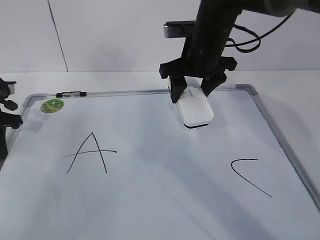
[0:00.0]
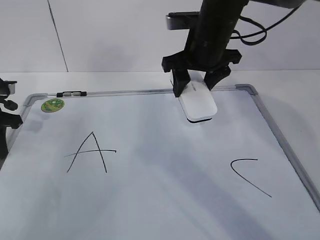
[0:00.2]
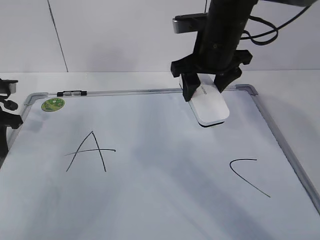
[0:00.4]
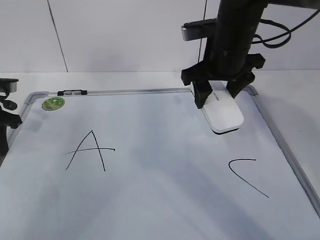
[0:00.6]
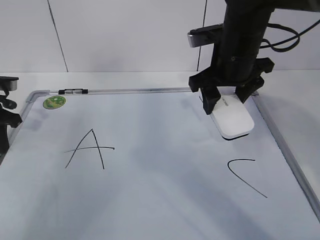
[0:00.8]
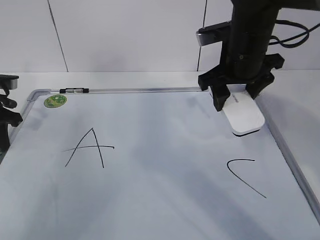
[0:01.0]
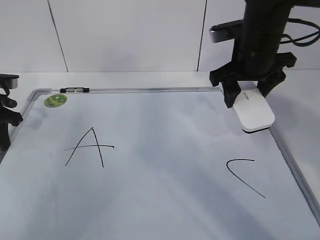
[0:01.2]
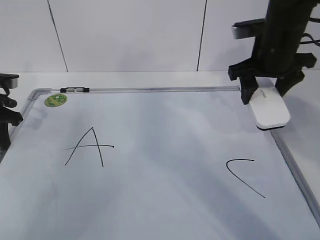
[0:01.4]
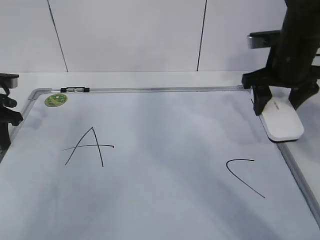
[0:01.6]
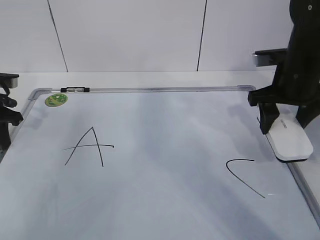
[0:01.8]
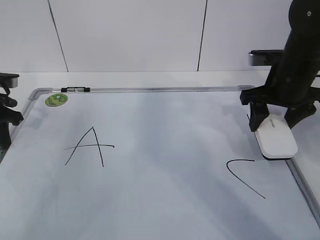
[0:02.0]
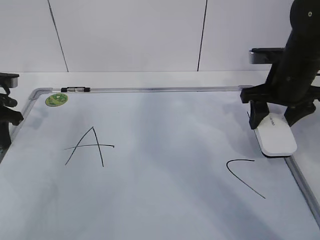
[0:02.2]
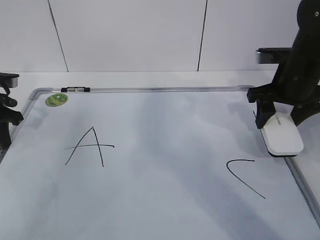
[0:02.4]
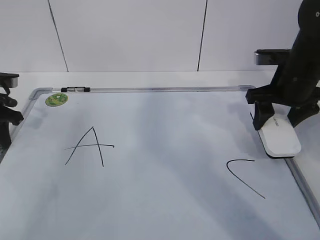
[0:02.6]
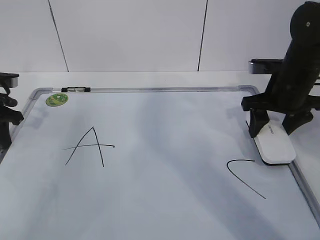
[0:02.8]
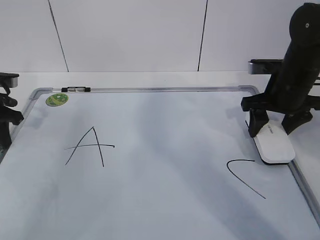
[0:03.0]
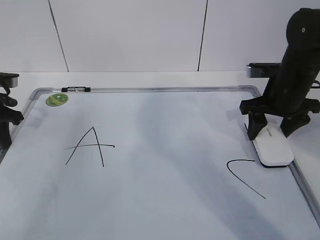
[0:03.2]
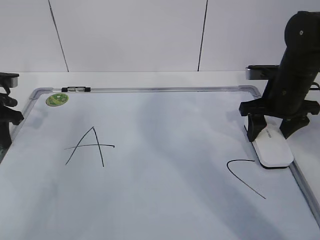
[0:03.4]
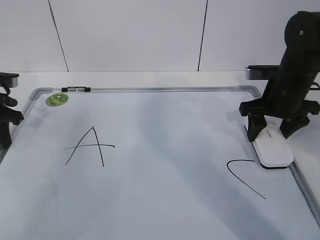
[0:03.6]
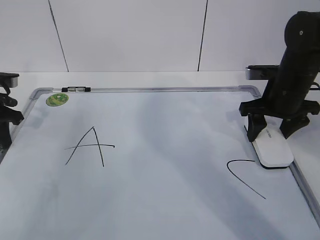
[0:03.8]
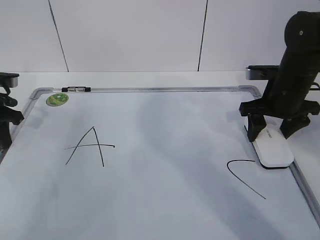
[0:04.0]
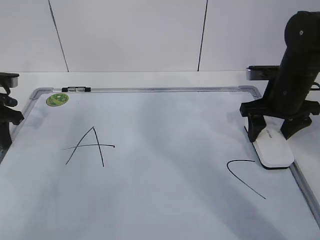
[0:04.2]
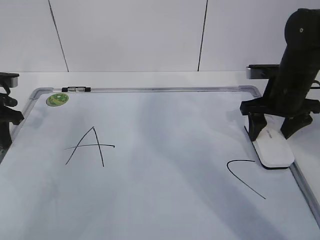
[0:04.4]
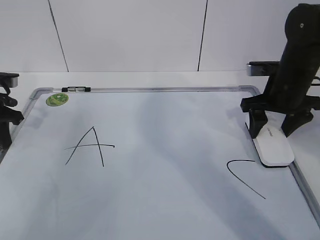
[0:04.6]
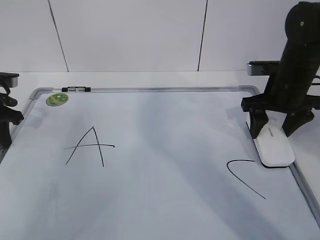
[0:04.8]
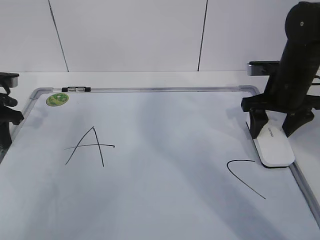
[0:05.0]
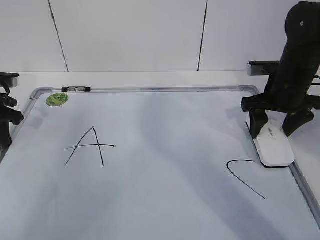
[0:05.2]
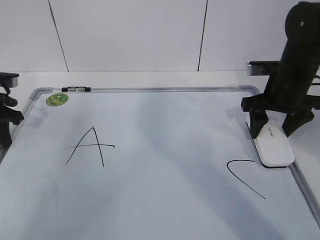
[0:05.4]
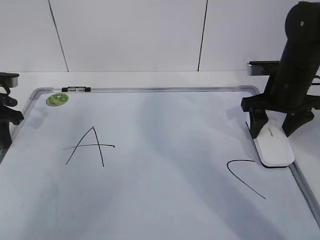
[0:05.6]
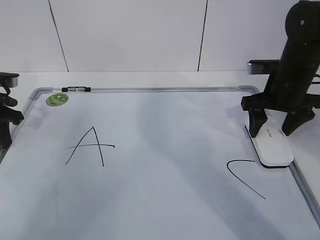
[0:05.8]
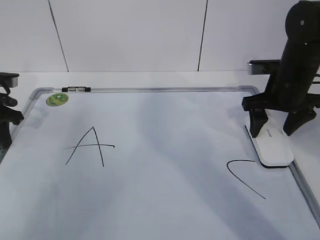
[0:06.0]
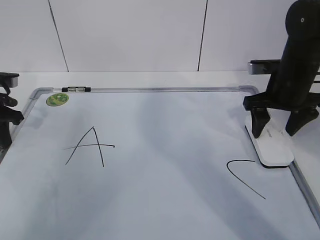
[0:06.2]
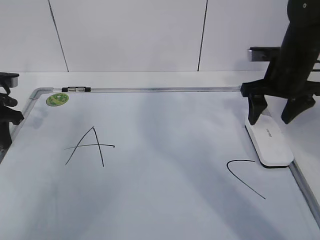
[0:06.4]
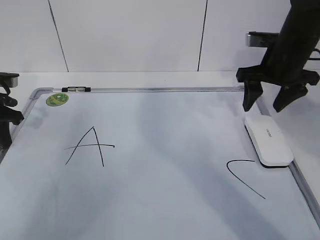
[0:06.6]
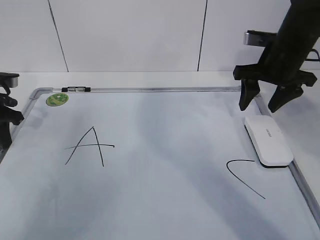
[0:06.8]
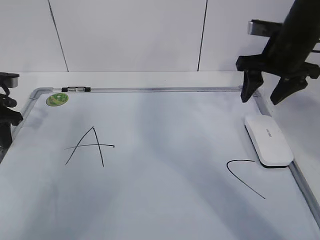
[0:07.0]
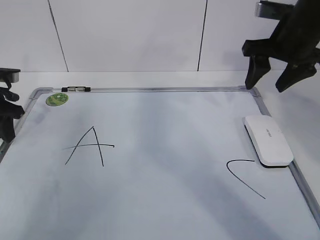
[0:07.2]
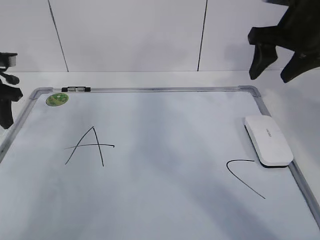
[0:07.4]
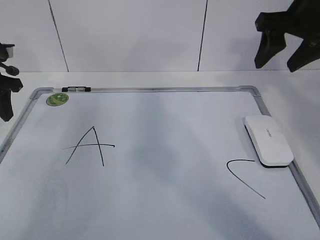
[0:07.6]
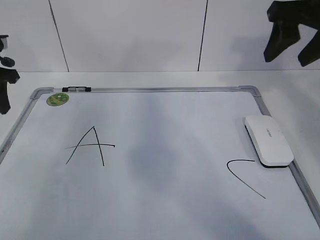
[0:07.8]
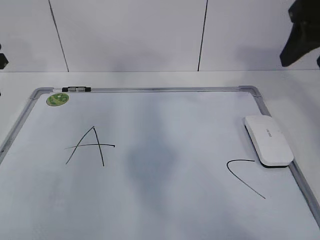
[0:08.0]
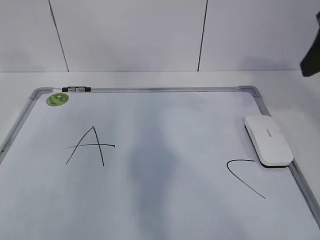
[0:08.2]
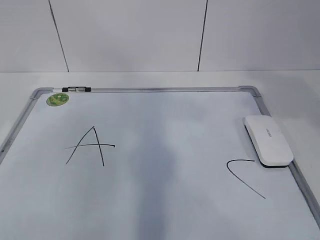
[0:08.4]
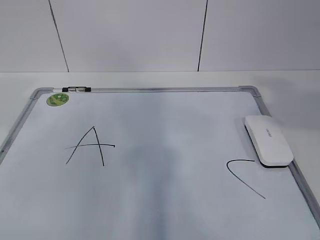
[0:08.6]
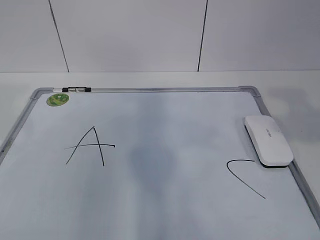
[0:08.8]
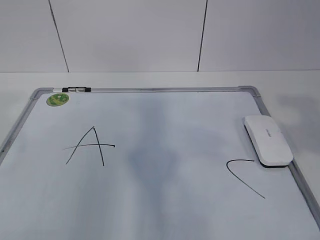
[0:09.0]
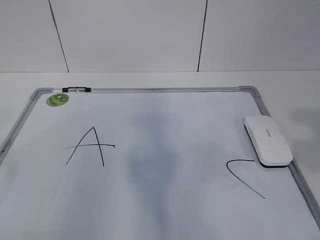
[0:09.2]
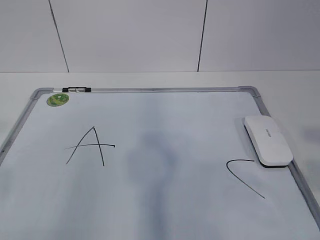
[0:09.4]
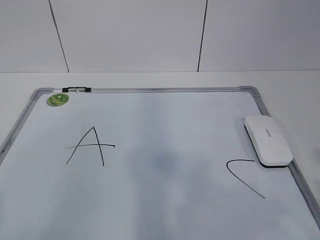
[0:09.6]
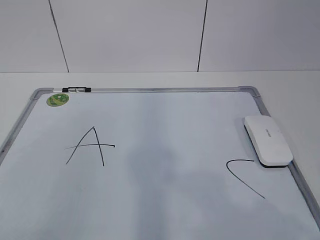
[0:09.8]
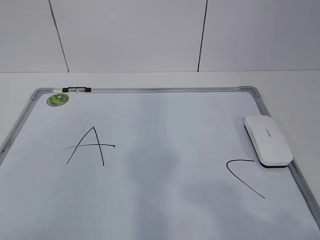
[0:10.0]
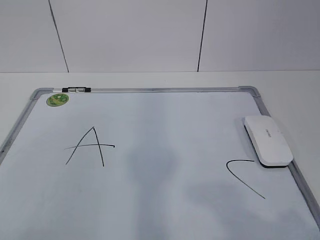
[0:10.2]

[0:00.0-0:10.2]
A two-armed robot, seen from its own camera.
Task of the whole recording: pick up the eraser on the blackboard and erase the letter "B".
0:00.0 to 0:01.4: The right gripper travels to the right by roughly 10 cm.
0:01.4 to 0:03.0: The right gripper is displaced downward by about 5 cm.
0:03.0 to 0:05.8: The two grippers keep their place.
0:05.8 to 0:07.2: The right gripper goes about 10 cm upward, and closes. Meanwhile the left gripper opens up.
0:07.2 to 0:08.8: Both grippers travel together backward and upward, approximately 30 cm.
0:08.8 to 0:10.2: Both grippers travel together backward and downward, roughly 20 cm.

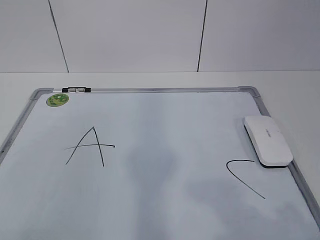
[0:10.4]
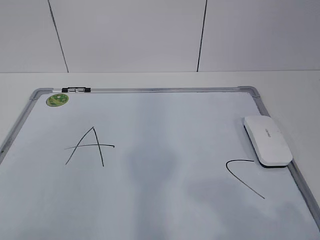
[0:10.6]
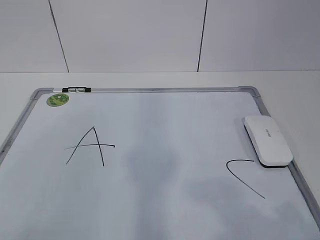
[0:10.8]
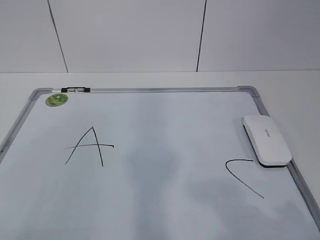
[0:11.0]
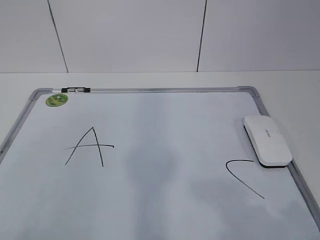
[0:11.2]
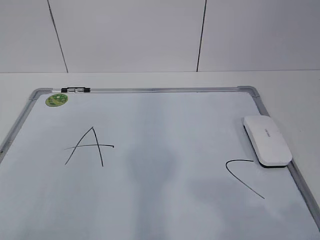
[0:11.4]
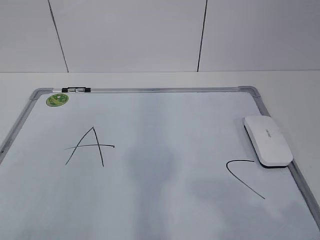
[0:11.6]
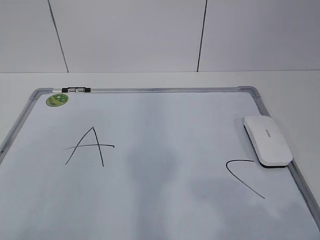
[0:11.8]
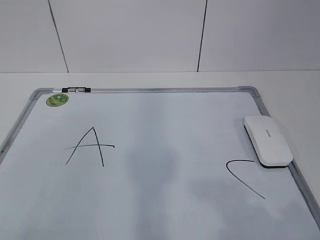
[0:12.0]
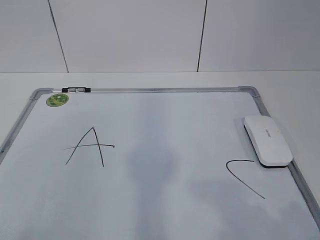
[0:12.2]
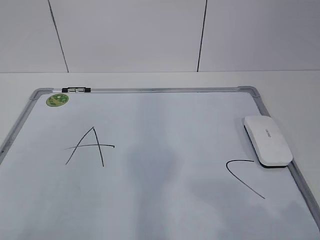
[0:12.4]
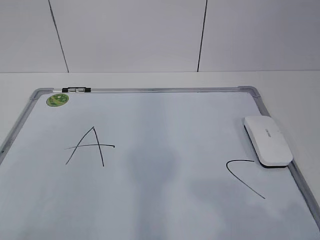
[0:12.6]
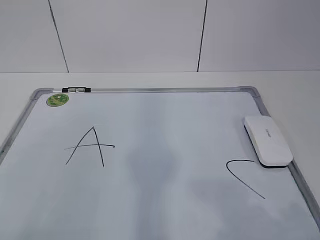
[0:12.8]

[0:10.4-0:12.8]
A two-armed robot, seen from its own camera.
Task of the whole recording: pick up the eraser on the blackboard and erase the letter "B".
0:10.4 to 0:12.8: Both grippers stay put.

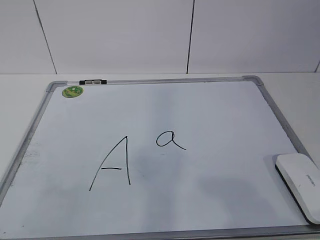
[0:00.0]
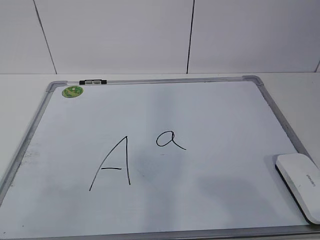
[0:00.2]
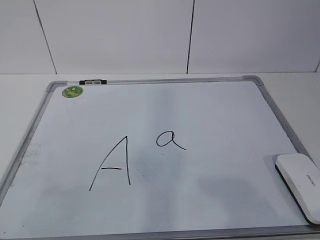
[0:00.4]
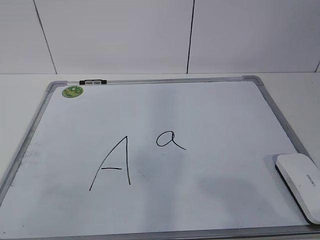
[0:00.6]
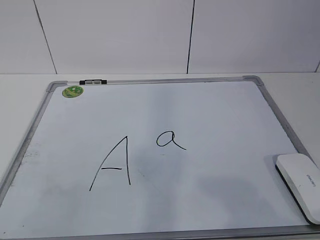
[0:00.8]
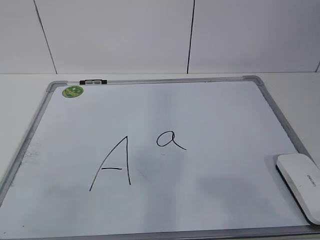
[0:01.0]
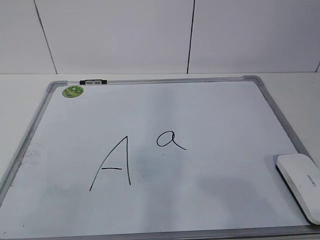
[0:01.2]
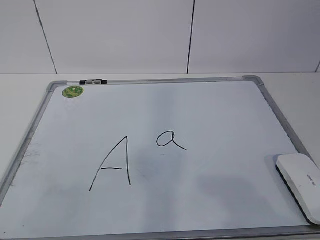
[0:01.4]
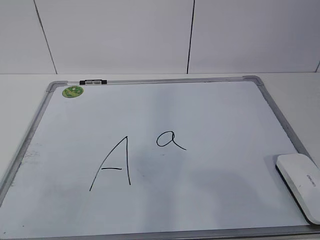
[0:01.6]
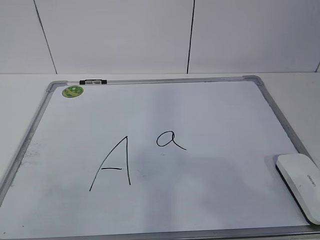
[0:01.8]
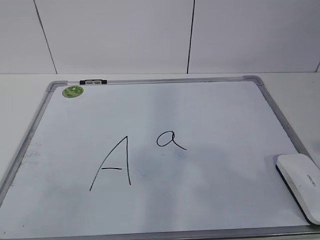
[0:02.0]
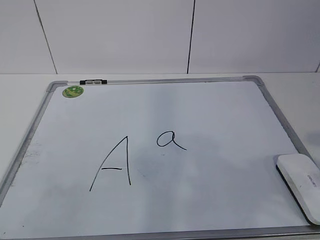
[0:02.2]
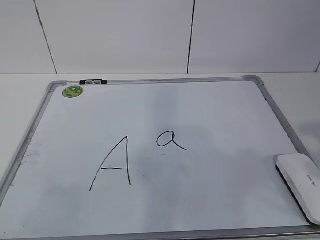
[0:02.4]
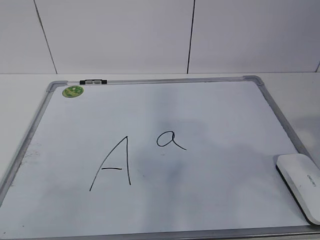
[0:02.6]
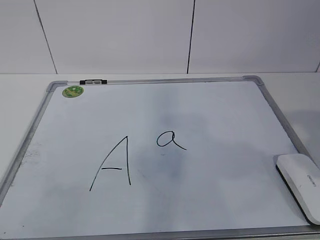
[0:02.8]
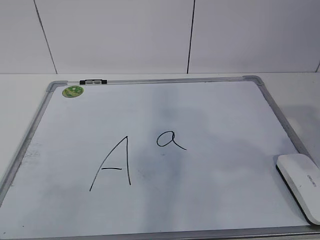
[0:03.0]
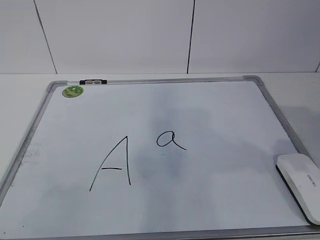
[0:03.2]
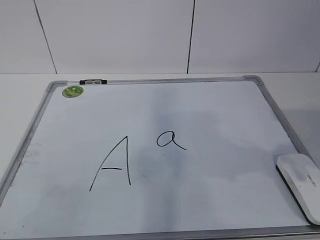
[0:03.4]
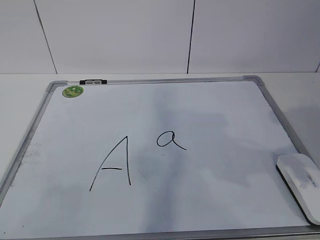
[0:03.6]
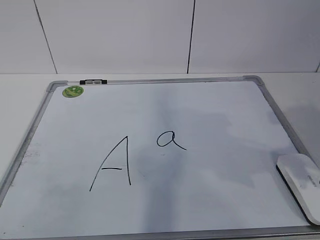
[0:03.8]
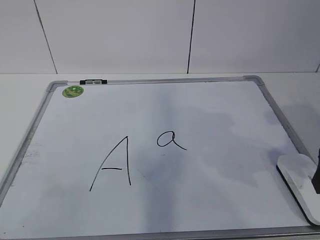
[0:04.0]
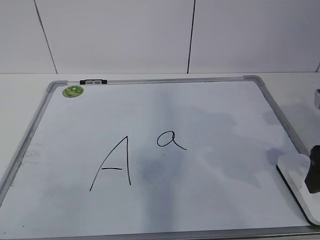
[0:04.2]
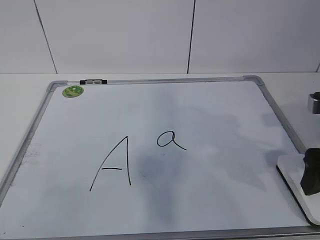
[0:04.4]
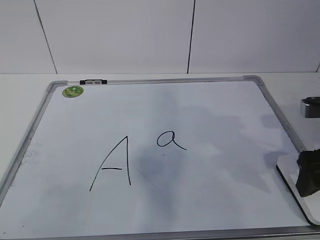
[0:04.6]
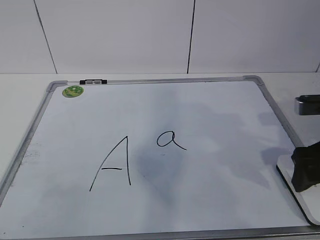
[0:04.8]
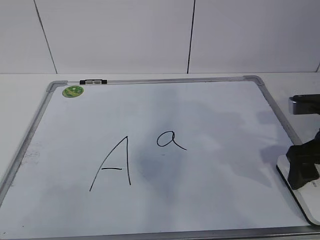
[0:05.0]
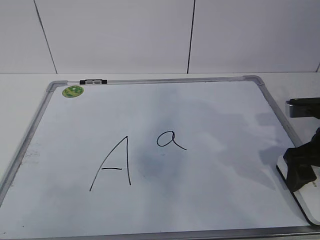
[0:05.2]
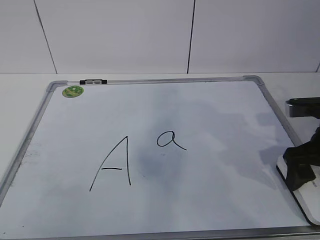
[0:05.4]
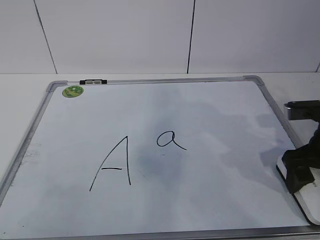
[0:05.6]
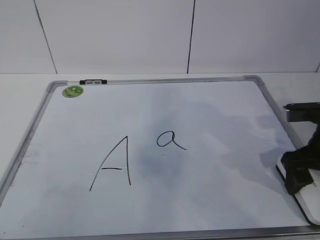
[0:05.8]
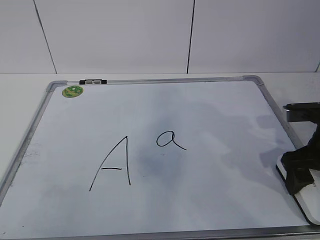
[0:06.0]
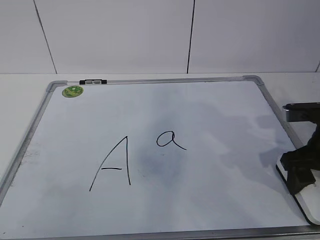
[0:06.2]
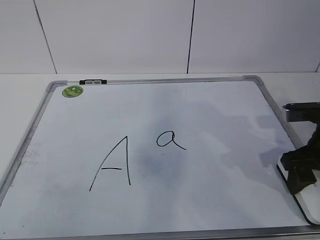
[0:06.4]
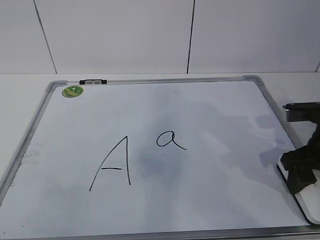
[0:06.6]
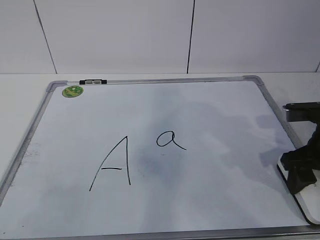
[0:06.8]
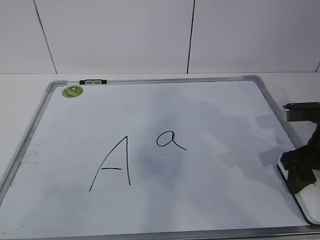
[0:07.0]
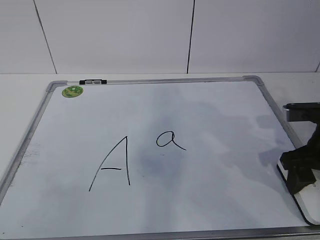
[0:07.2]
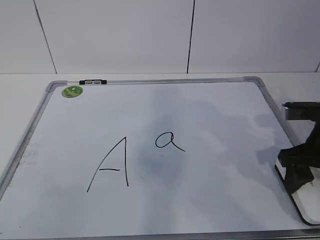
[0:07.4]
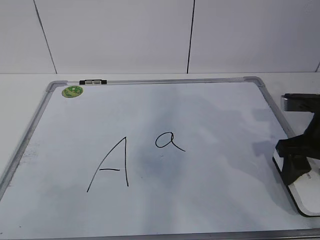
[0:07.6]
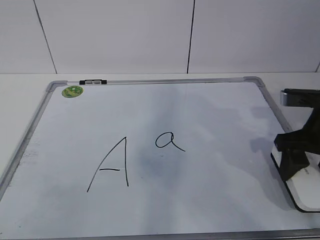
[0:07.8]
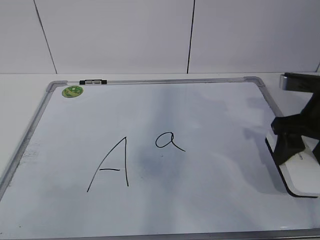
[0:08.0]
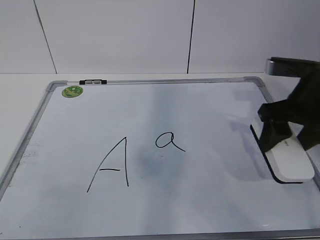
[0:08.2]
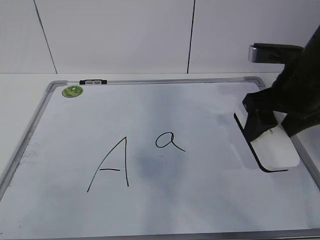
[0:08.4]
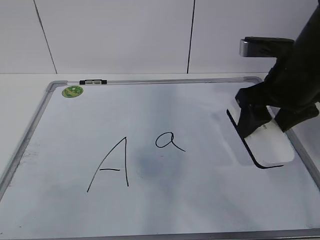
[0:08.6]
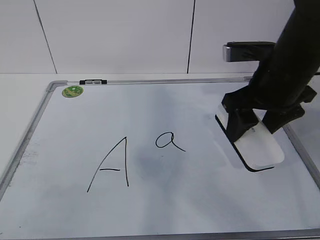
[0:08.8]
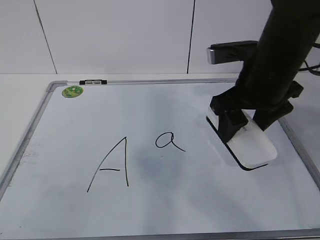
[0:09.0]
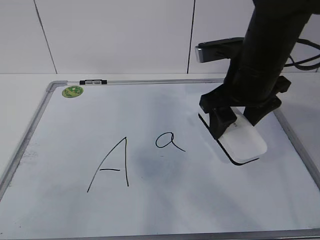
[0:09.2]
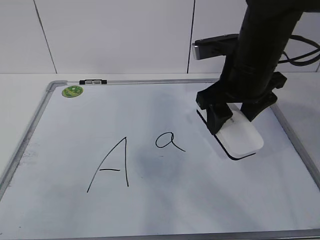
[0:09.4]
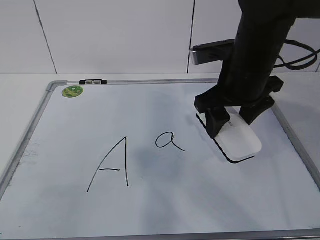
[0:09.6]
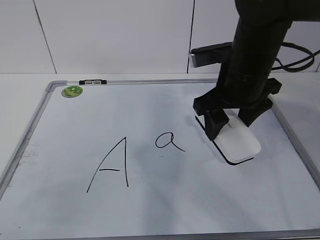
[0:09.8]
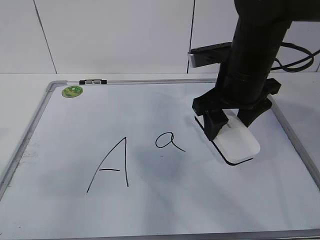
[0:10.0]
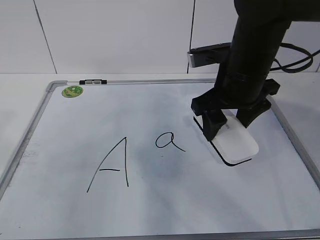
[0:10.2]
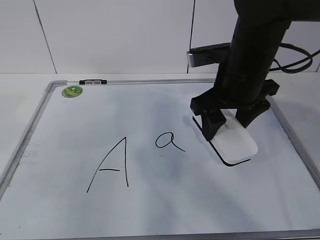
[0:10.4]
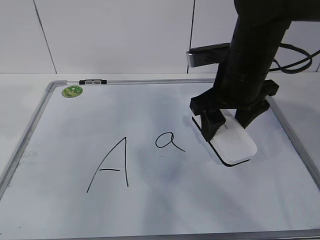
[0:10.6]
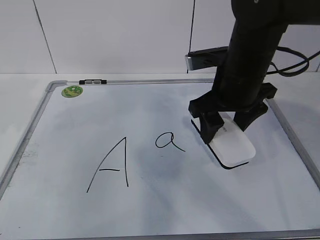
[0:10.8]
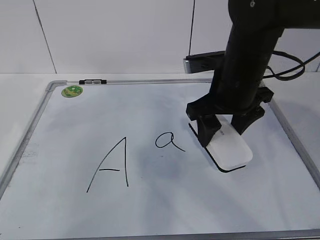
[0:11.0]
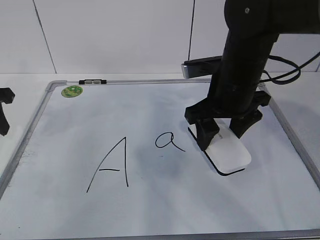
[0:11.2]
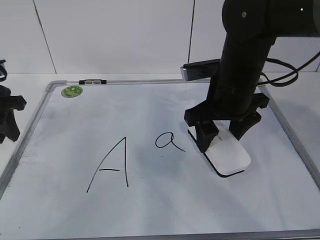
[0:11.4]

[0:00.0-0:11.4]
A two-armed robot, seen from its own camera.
Task of the whole recording: pick up the eraser on the blackboard and erase the letter "a".
Step, 0:00.0 to 0:05.6: Grab the eraser with your right hand.
0:02.8 to 0:04.2: The right gripper moves forward and downward, about 15 cm.
0:04.2 to 0:05.6: The right gripper heads downward and forward, covering roughly 5 cm.
0:05.6 to 0:07.2: The right gripper closes.
0:07.2 to 0:08.6: The right gripper travels upward and to the left by roughly 10 cm.
0:08.6 to 0:10.0: The right gripper goes approximately 5 cm to the left. The left gripper goes about 10 cm forward.
0:10.0 to 0:11.4: The left gripper shifts roughly 25 cm forward.
